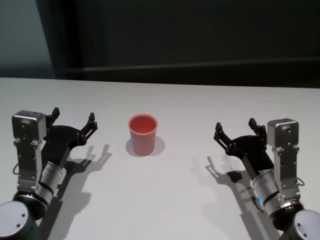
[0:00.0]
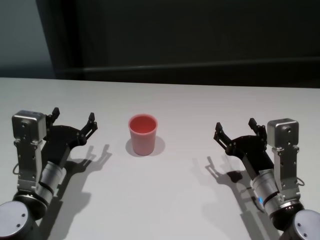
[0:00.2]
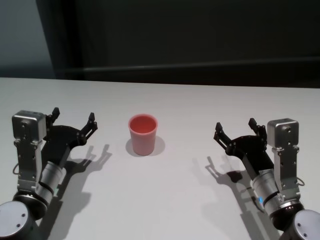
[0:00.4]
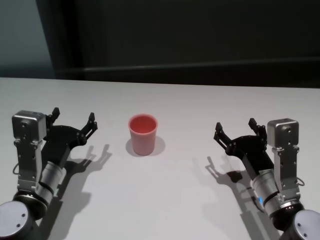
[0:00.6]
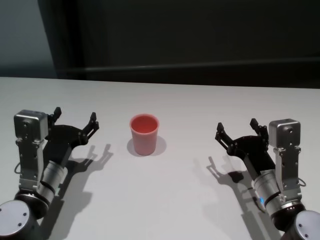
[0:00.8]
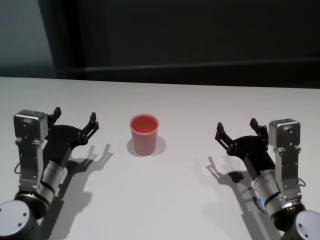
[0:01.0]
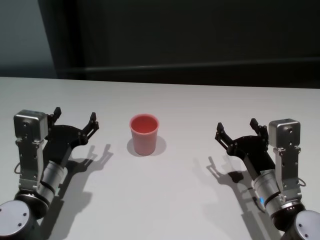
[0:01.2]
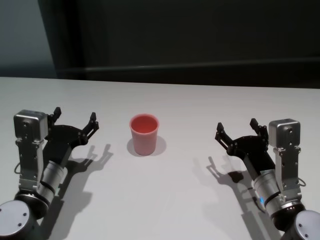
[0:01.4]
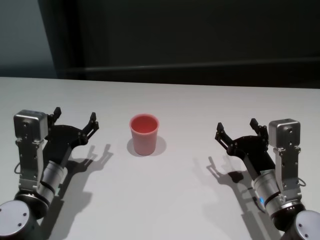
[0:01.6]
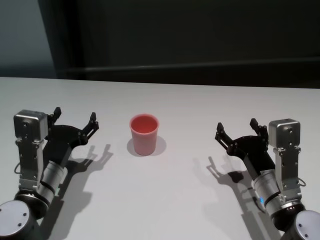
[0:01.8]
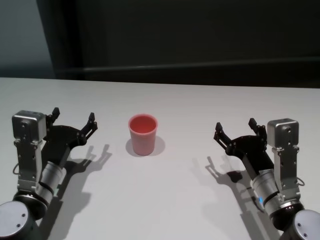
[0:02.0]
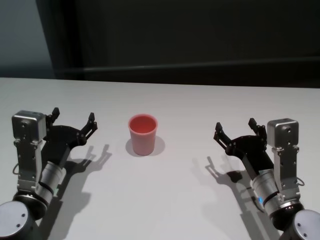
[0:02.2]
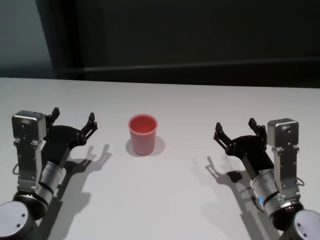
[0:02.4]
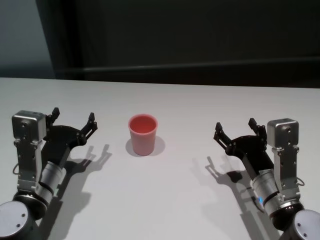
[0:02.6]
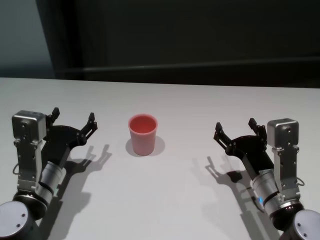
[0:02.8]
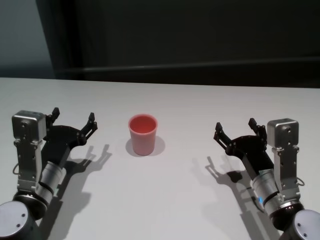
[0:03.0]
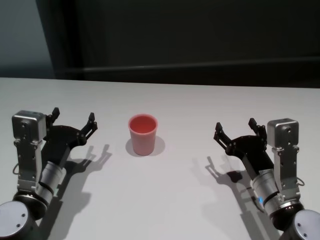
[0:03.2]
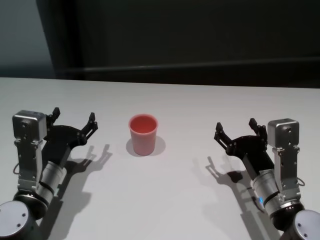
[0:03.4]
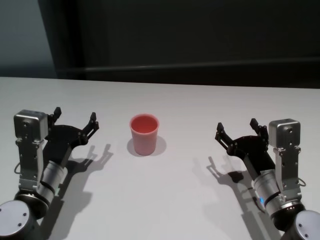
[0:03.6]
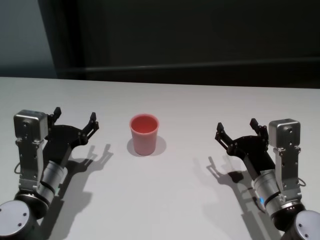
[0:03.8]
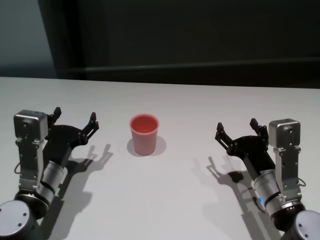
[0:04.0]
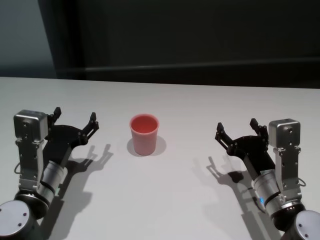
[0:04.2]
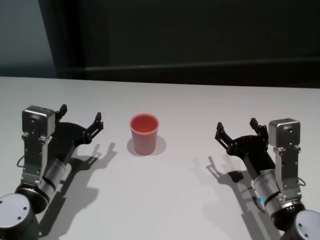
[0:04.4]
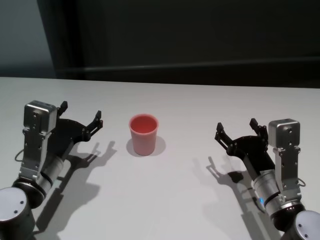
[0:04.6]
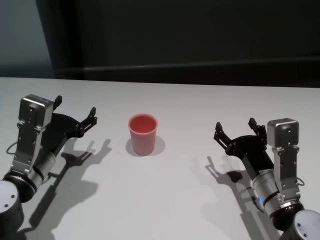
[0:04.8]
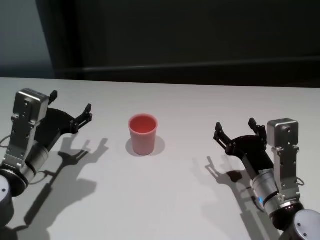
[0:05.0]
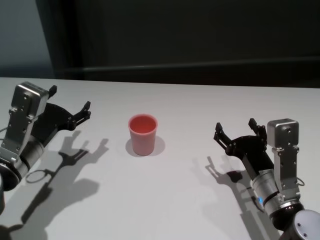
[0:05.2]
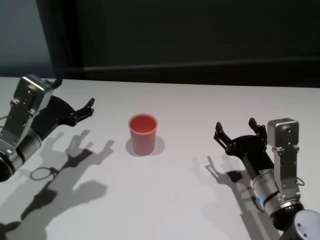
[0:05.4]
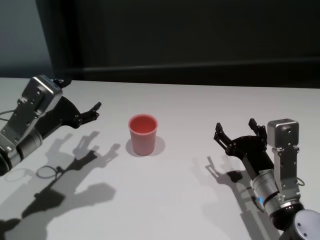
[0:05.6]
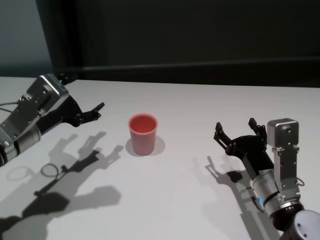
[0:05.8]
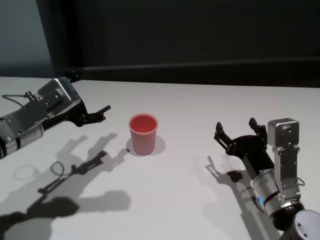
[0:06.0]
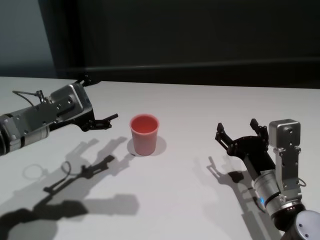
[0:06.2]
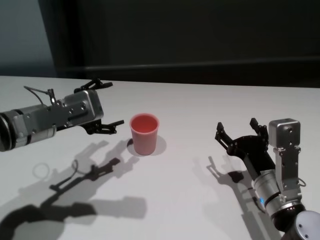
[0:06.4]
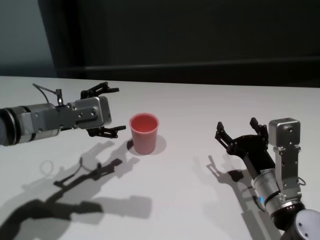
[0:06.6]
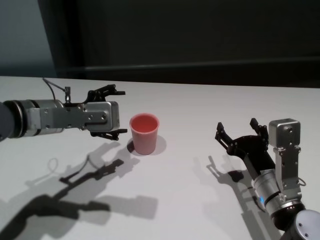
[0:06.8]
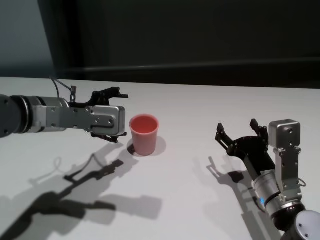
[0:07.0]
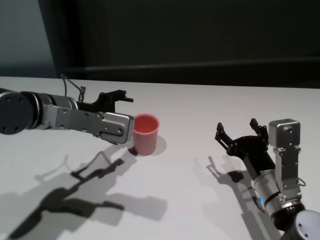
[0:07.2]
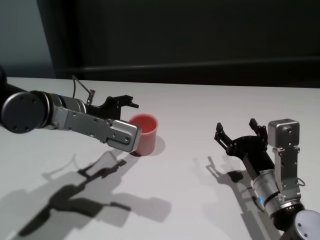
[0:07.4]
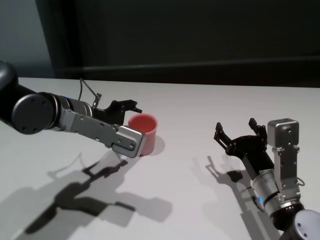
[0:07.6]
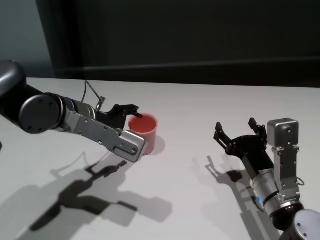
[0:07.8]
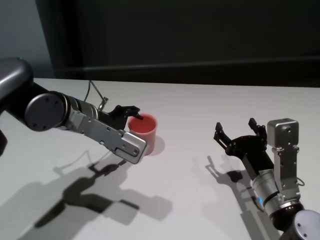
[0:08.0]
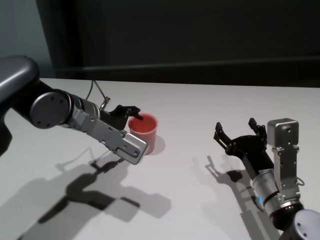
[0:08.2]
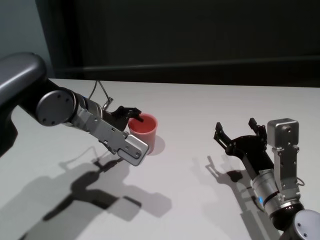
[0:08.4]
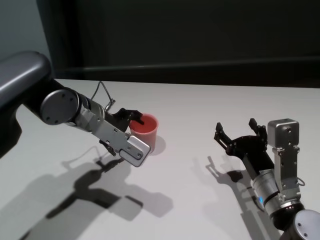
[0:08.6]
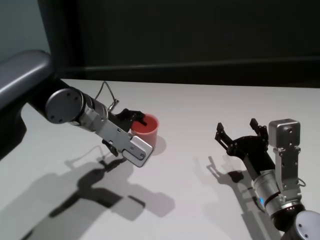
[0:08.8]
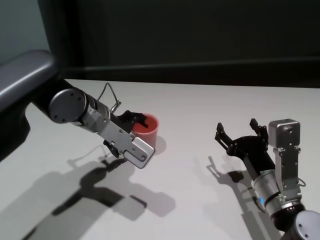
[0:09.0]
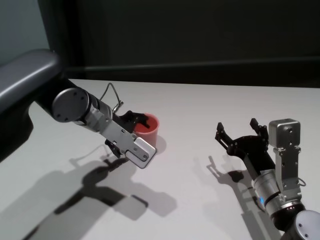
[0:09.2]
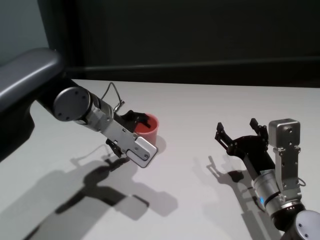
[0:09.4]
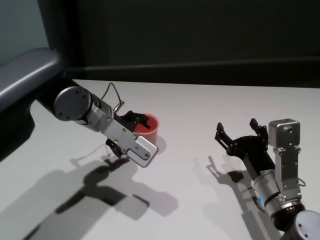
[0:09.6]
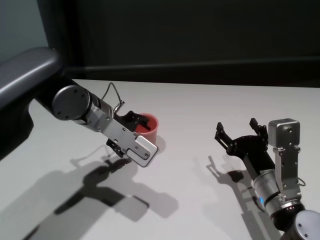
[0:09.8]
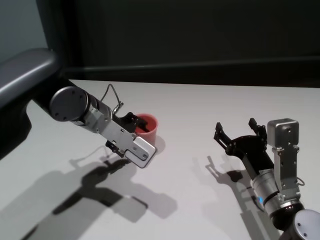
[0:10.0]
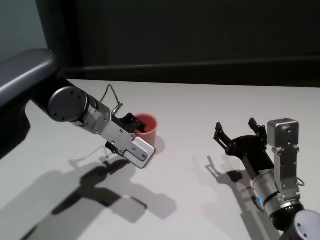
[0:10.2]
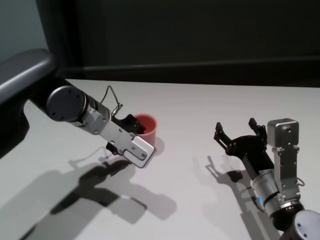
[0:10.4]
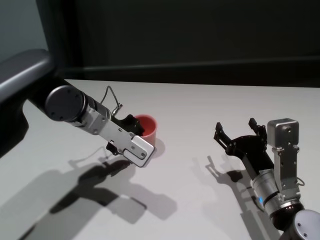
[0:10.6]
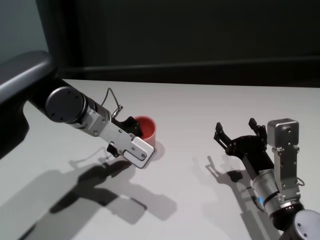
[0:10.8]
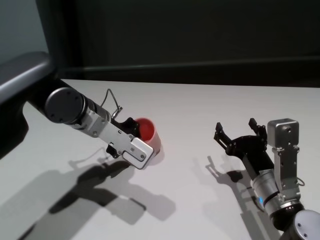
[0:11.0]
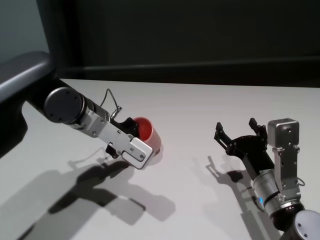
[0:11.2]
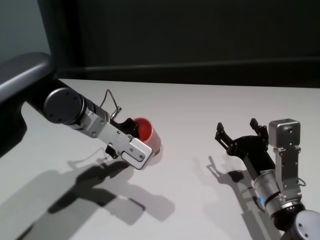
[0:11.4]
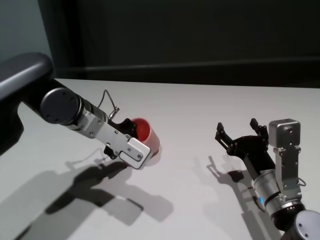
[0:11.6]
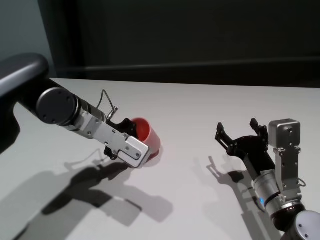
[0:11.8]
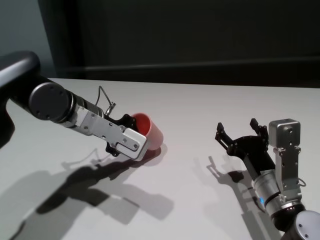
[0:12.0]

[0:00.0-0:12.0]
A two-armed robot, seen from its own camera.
Task of the whole recording: On the white table pick up the cup with one hand and transfer it to the other hand before turning it over.
Step, 0:00.0 to 0:10.8: Grasp the cup with left gripper.

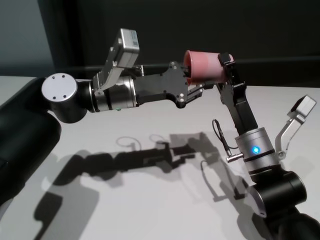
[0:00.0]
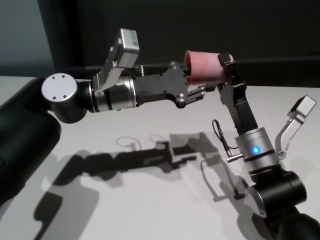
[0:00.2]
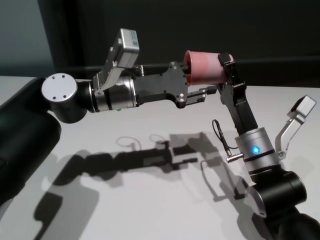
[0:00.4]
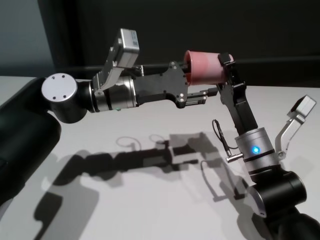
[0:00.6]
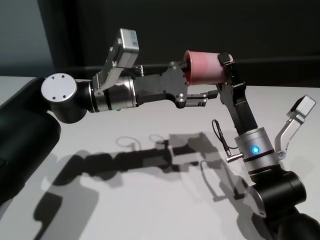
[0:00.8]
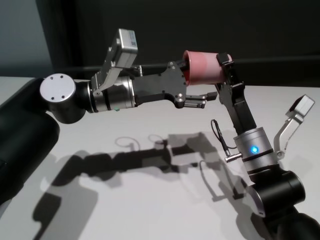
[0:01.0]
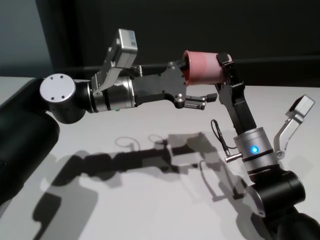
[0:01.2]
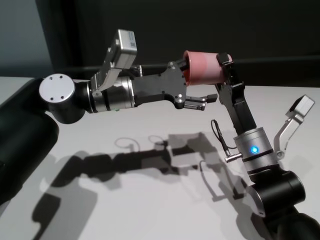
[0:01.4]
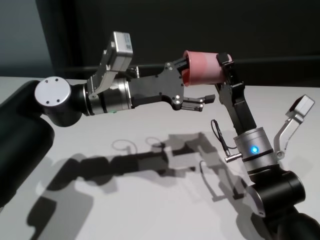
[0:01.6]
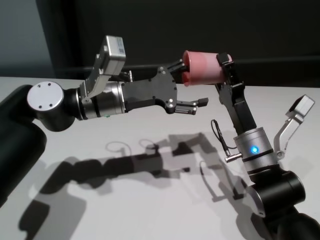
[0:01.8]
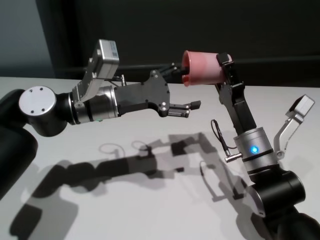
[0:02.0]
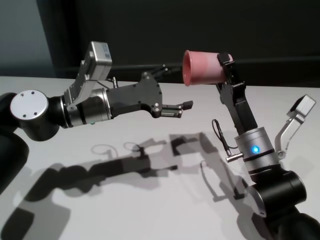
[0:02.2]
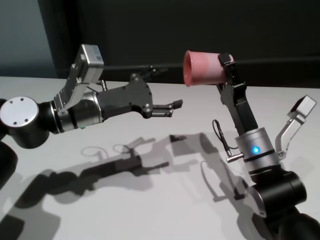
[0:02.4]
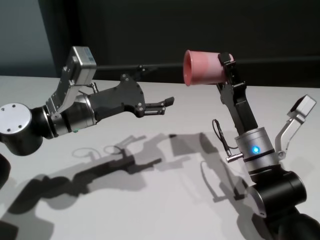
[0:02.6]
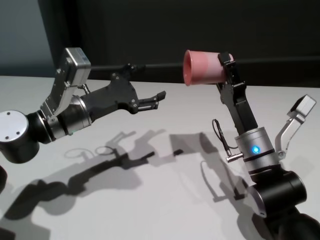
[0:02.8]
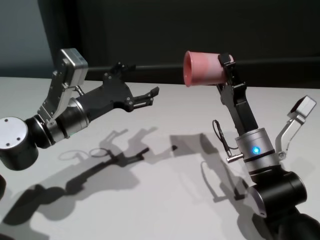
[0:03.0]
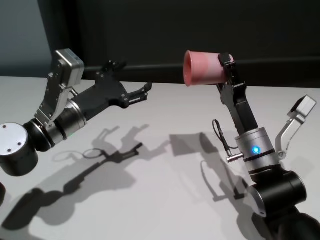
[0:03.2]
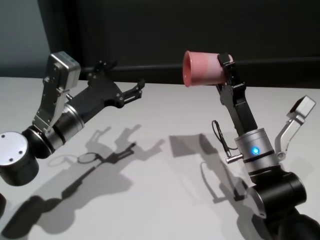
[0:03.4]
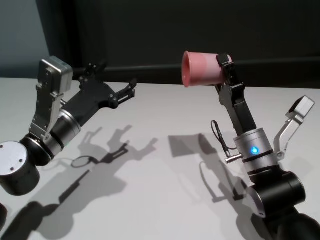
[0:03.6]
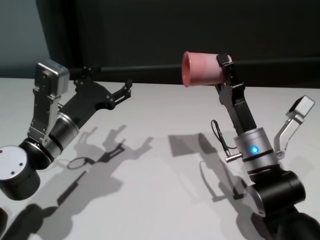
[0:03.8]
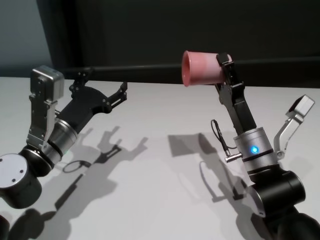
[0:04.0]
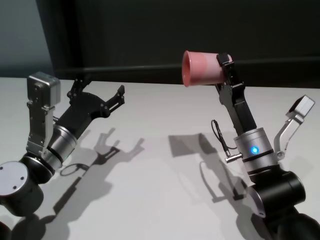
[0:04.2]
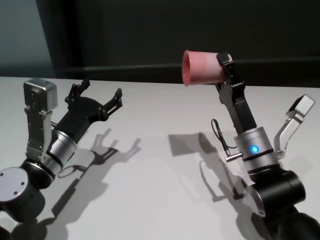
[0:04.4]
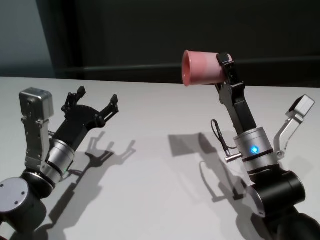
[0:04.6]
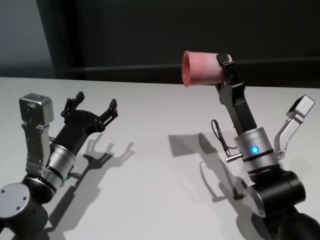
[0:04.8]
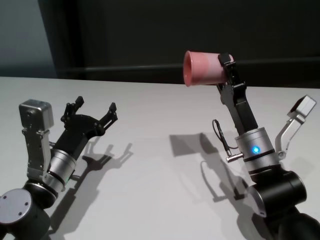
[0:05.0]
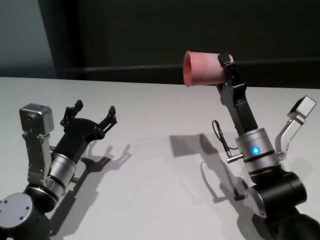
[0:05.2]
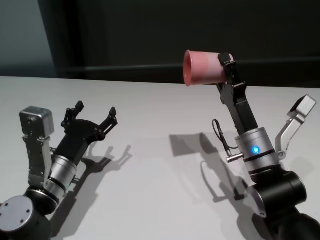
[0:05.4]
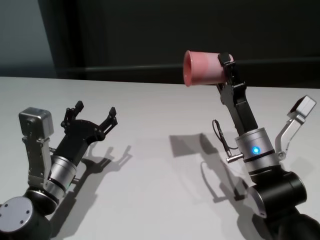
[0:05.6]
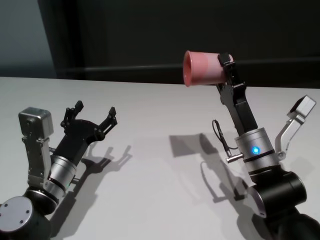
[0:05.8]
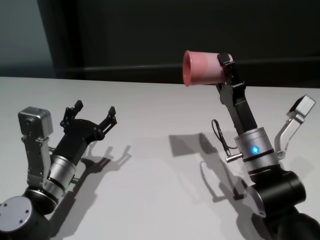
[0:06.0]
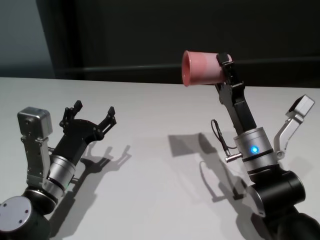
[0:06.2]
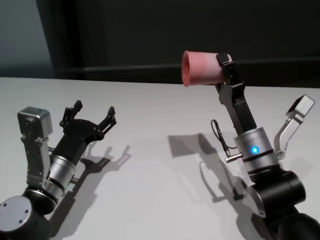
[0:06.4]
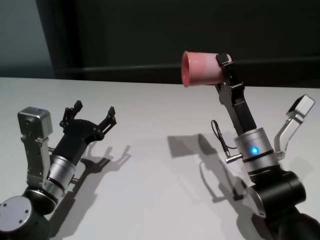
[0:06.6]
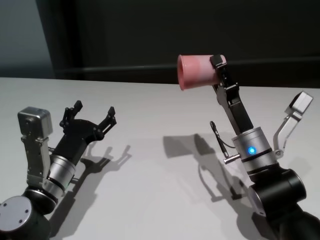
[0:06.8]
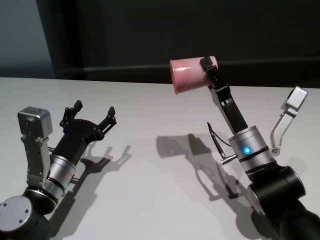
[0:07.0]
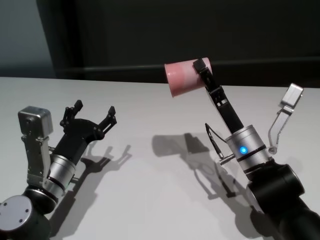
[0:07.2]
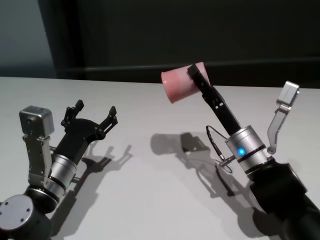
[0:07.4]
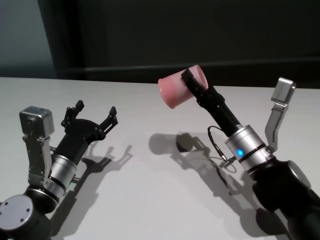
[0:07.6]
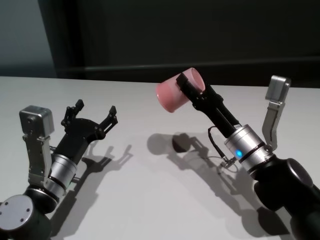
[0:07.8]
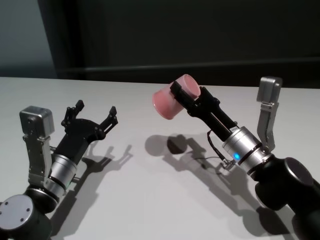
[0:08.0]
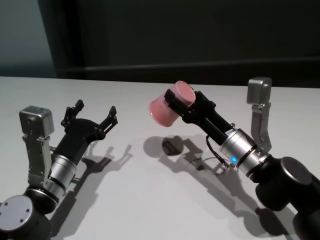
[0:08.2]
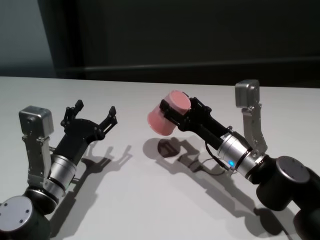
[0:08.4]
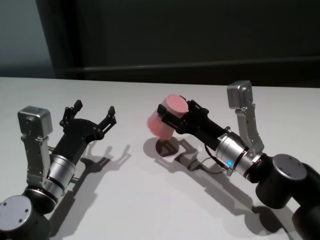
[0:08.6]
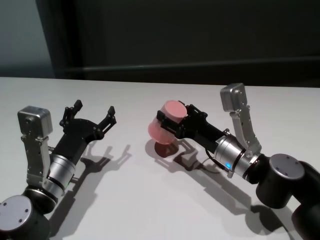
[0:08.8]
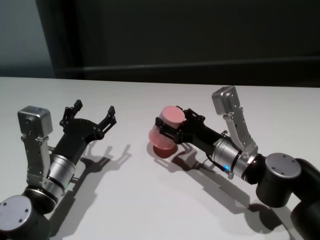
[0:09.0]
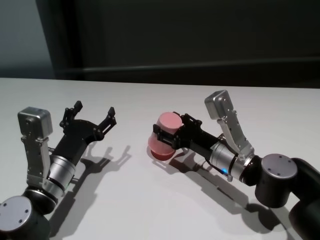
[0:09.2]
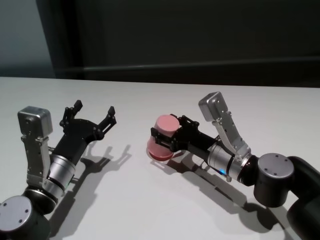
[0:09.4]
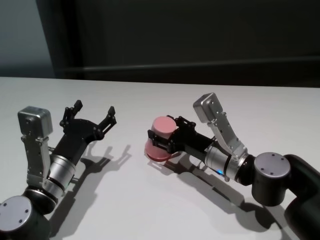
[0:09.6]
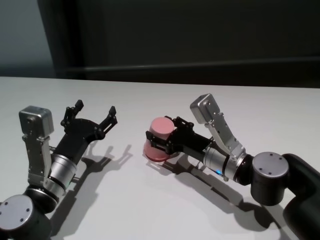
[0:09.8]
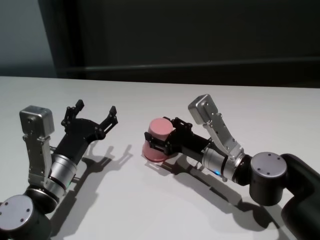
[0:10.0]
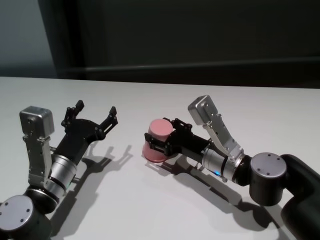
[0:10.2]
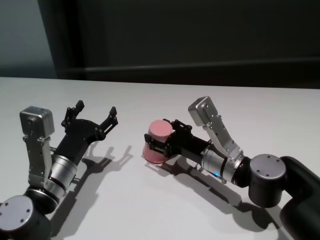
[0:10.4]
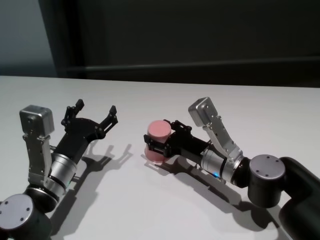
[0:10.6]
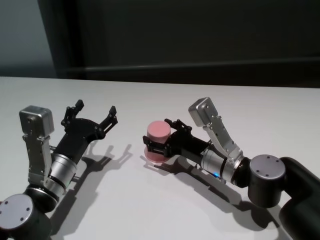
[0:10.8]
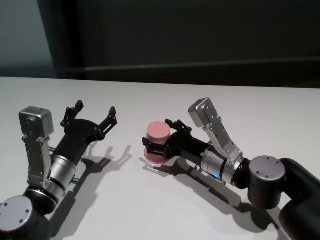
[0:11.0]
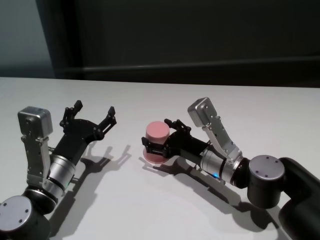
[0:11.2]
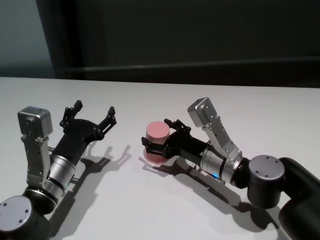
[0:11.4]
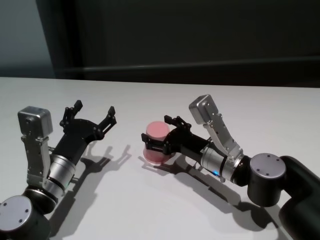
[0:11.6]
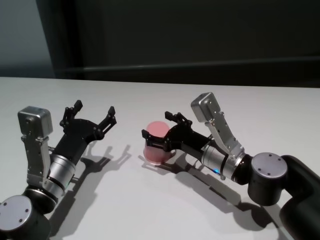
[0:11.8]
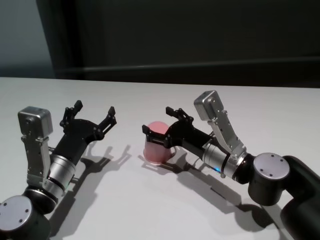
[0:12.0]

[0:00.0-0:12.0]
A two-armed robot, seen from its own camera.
Task of the whole recording: On the white table pick up the cup with one hand and transfer it to the other hand before turning it over.
Step, 0:00.0 to 0:02.4: Pass the cup to the right gripper.
